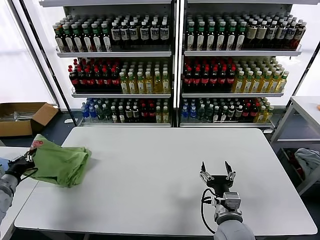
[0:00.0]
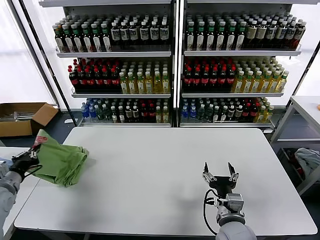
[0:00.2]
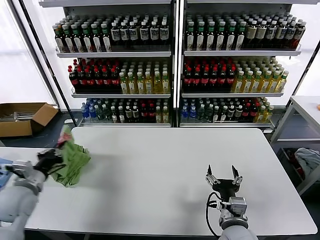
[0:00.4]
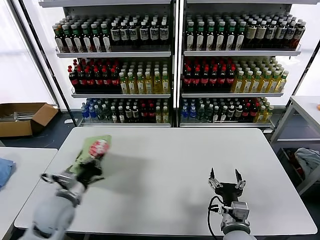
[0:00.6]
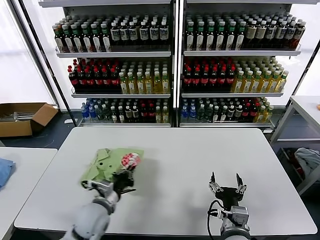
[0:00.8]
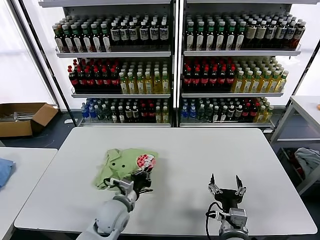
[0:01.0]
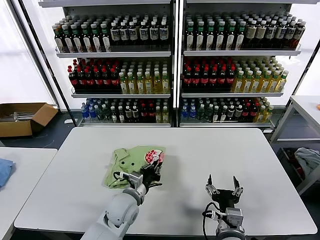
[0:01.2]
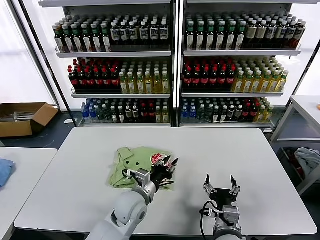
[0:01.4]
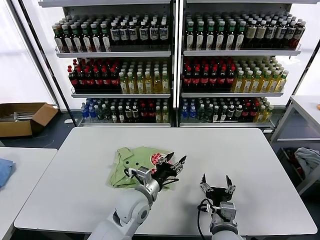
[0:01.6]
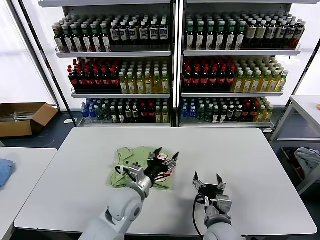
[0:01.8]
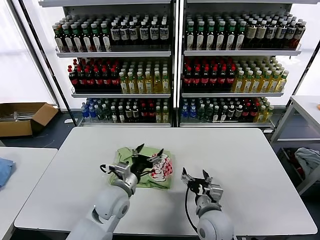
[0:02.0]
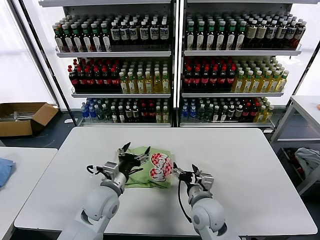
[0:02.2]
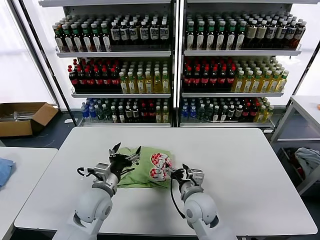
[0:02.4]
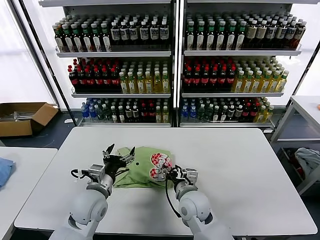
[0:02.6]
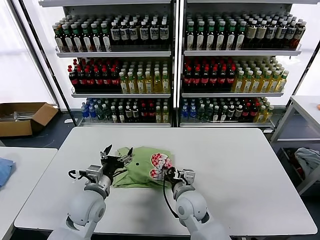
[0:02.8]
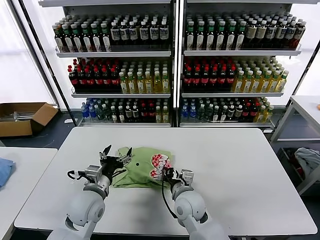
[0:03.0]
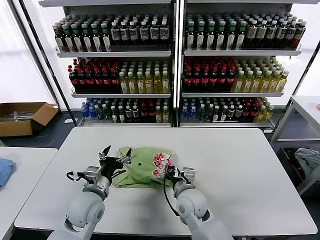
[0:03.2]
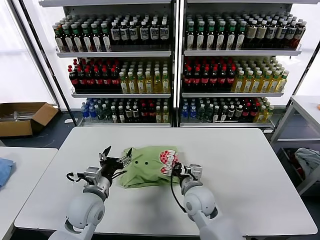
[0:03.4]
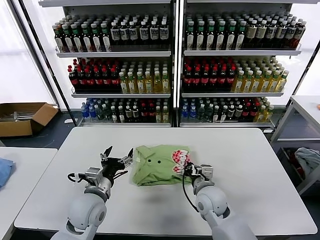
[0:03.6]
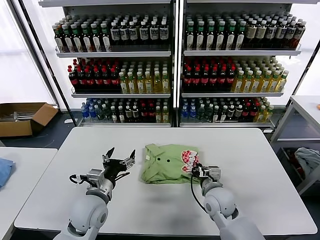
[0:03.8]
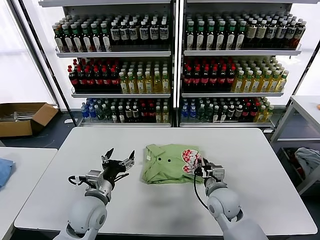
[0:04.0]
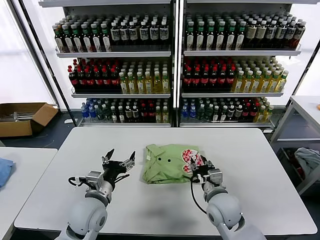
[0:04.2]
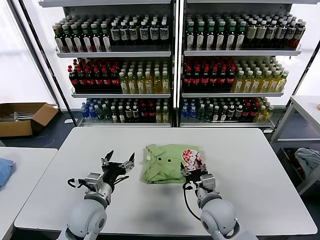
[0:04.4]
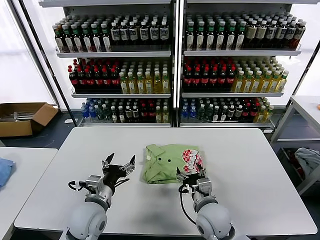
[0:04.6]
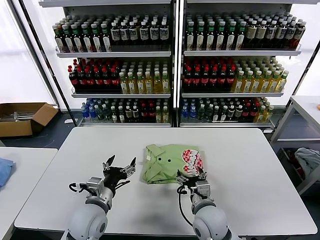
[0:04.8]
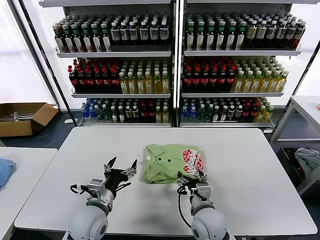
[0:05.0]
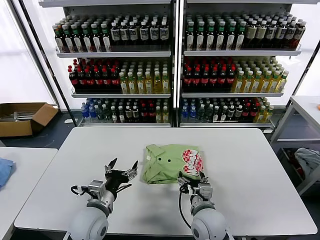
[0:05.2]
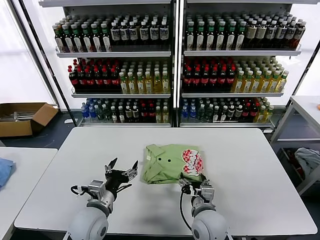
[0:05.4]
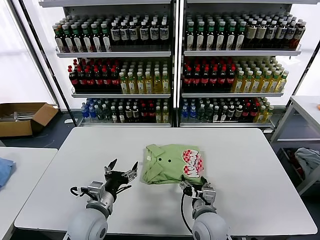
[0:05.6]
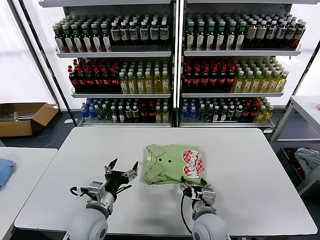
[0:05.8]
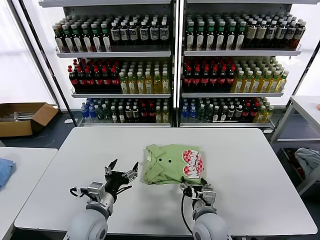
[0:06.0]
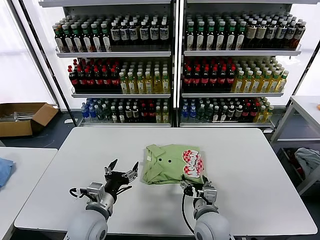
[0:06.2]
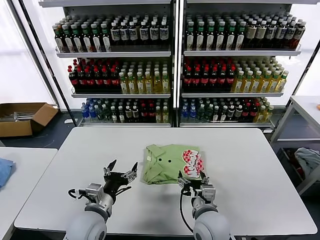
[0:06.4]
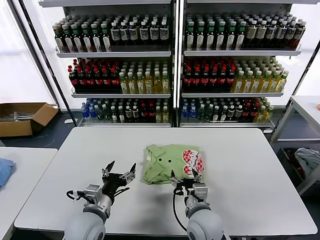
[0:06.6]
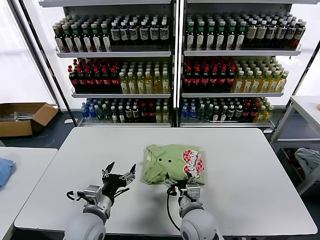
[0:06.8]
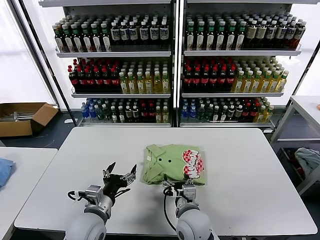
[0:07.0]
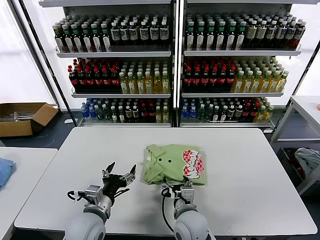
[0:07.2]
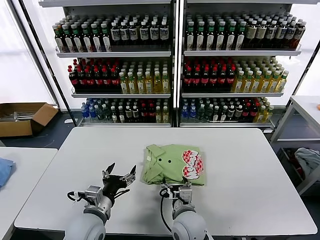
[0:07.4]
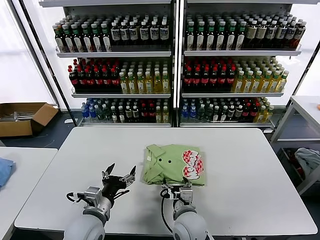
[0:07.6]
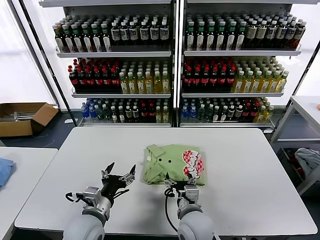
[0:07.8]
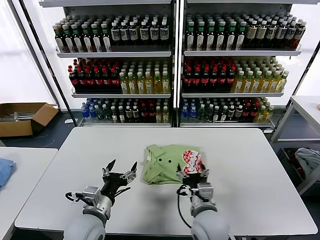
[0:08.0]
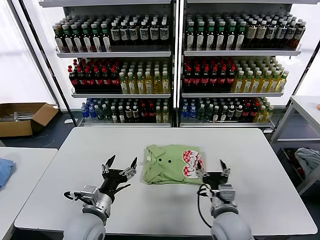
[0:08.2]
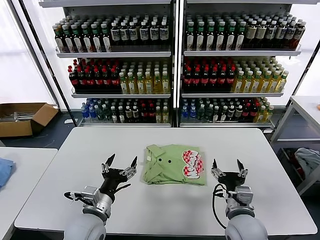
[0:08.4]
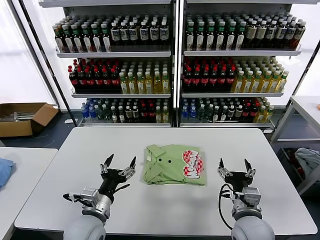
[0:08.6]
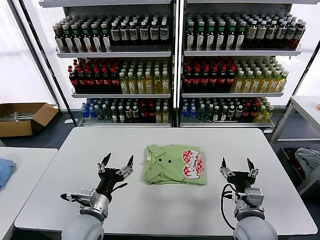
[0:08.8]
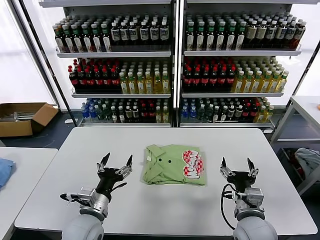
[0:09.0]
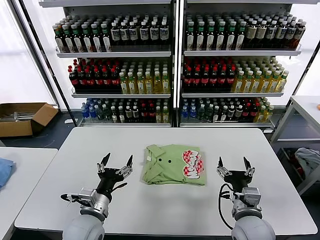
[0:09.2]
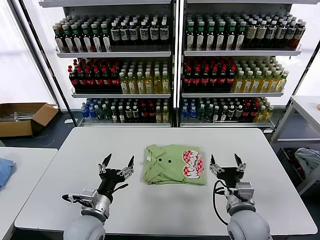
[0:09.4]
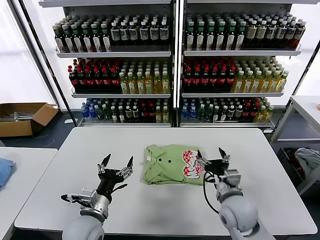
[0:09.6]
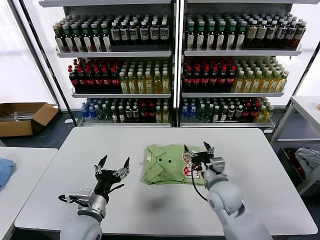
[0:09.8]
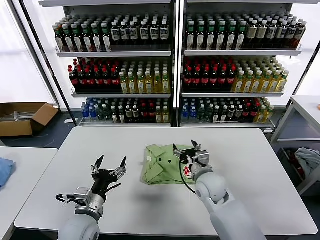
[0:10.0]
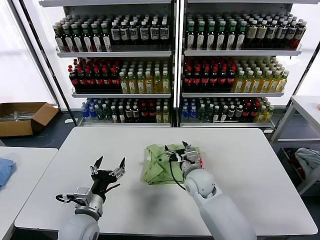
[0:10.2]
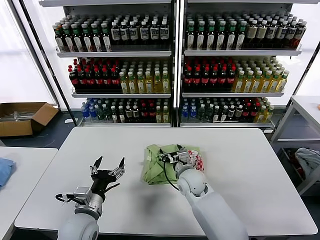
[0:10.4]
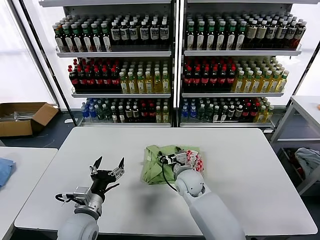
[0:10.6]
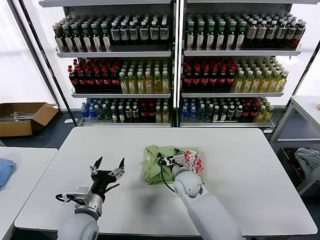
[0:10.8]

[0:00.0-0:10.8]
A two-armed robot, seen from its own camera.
Task of the whole recording: fold and organize the clothes.
0:00.0 to 0:01.6: The left gripper goes approximately 40 cm to the right, and opens up.
0:01.6 to 0:03.0: The right gripper travels forward and to the left by some 15 cm, and closes up; the left gripper is displaced to the left by roughly 15 cm, and opens.
0:03.0 to 0:04.6: The right gripper shifts about 5 cm to the right, and opens up.
0:04.6 to 0:06.2: There are only small adjustments of the grippers.
0:06.2 to 0:07.8: The right gripper is displaced to the left by some 5 cm.
0:07.8 to 0:09.2: The right gripper travels to the right by roughly 15 cm.
0:09.2 to 0:10.8: The right gripper travels forward and to the left by roughly 25 cm.

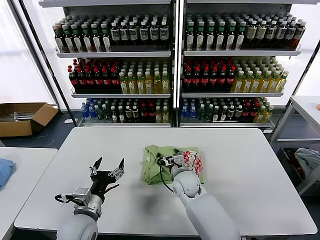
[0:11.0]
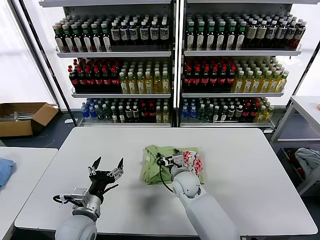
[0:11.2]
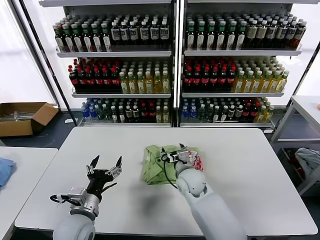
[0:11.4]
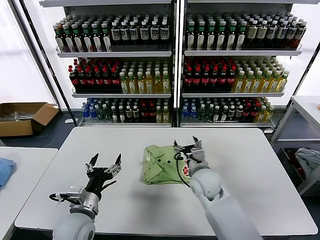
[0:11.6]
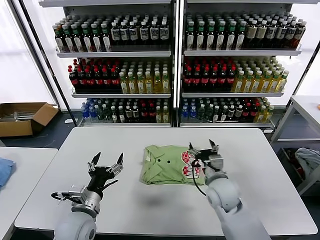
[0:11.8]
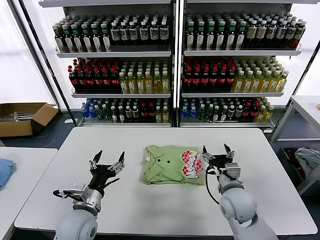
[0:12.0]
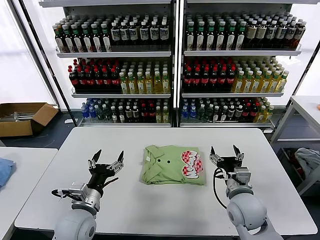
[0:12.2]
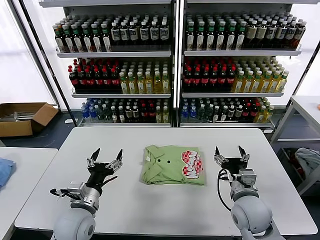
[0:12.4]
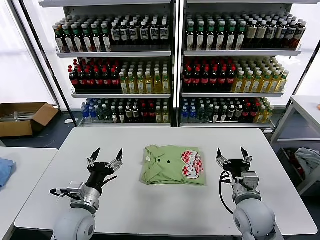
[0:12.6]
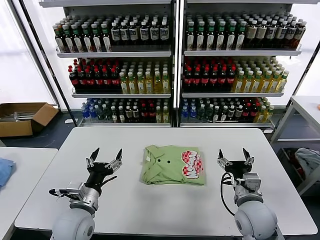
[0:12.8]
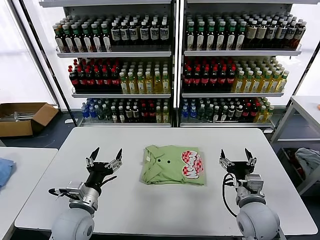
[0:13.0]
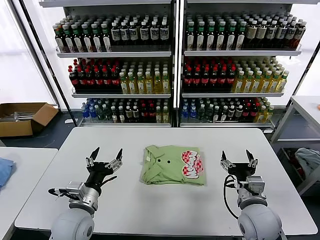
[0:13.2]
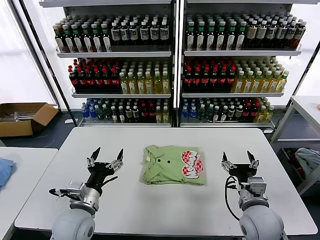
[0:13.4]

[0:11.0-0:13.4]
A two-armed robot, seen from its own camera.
Task of the whole recording: fold and organize the clothes.
0:11.0 to 0:12.2: The right gripper goes about 20 cm to the right, backward and upward.
0:12.2 to 0:13.4: The right gripper shifts by approximately 5 cm.
